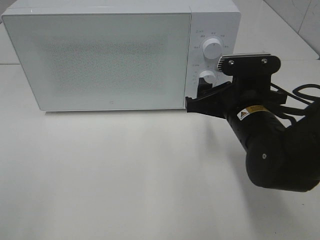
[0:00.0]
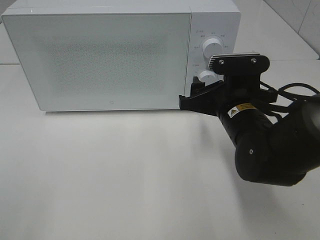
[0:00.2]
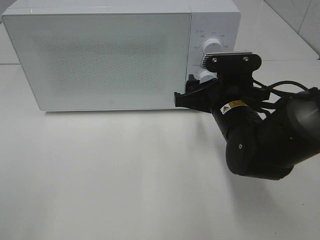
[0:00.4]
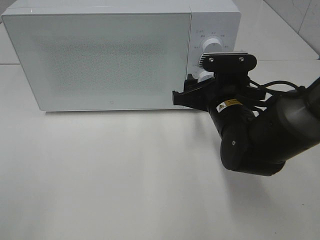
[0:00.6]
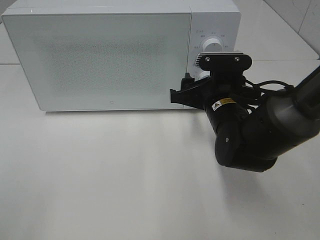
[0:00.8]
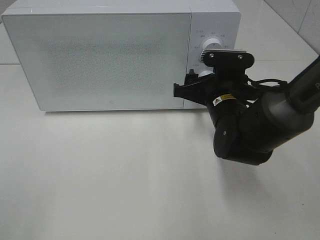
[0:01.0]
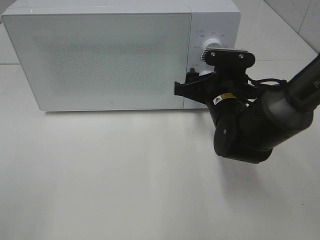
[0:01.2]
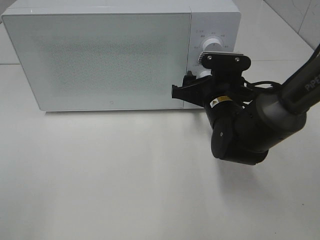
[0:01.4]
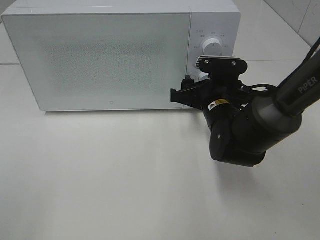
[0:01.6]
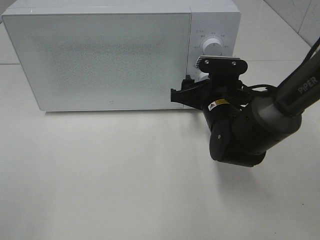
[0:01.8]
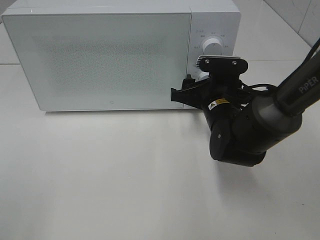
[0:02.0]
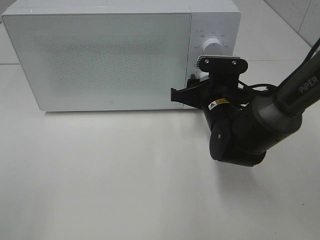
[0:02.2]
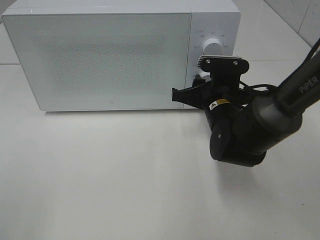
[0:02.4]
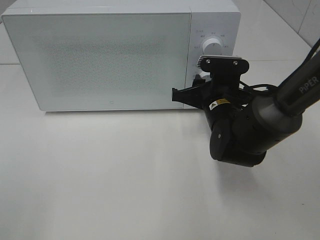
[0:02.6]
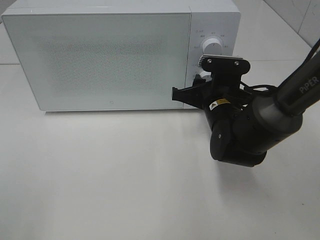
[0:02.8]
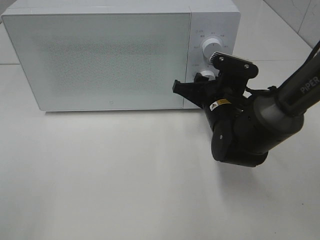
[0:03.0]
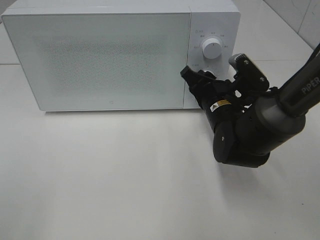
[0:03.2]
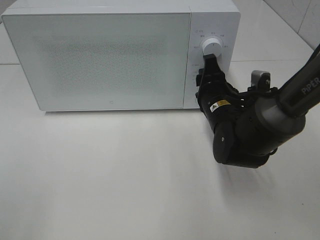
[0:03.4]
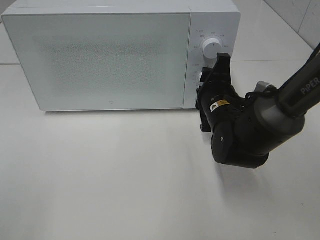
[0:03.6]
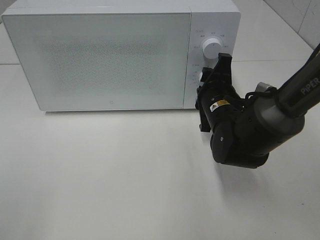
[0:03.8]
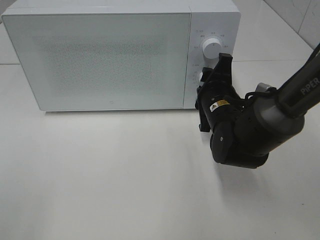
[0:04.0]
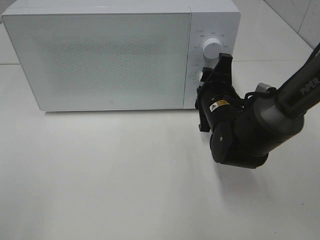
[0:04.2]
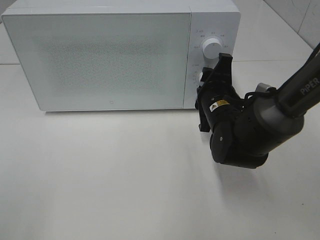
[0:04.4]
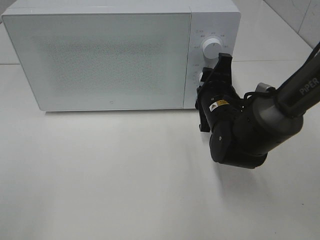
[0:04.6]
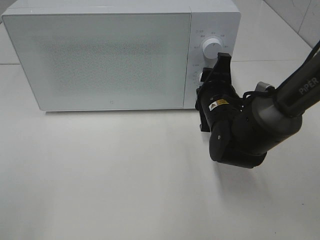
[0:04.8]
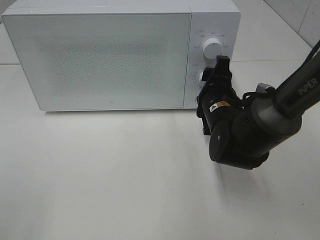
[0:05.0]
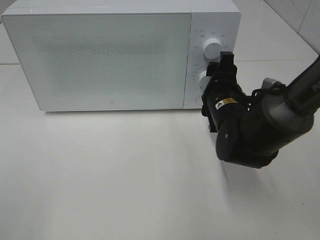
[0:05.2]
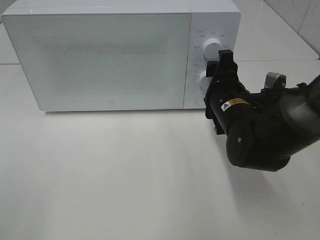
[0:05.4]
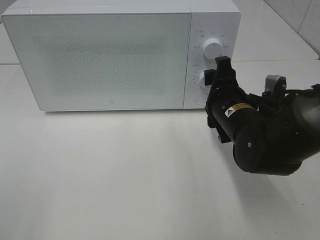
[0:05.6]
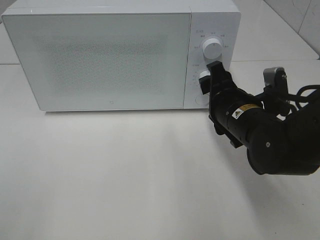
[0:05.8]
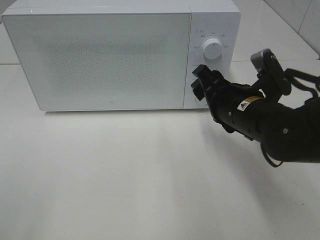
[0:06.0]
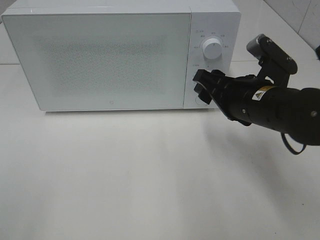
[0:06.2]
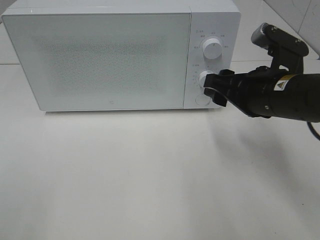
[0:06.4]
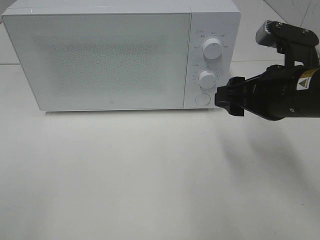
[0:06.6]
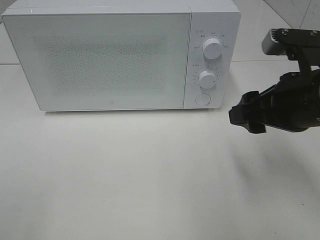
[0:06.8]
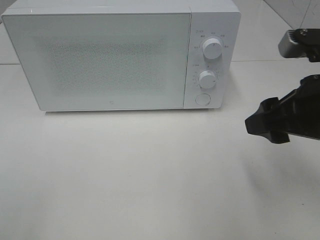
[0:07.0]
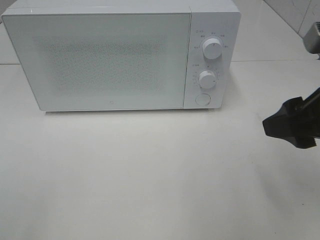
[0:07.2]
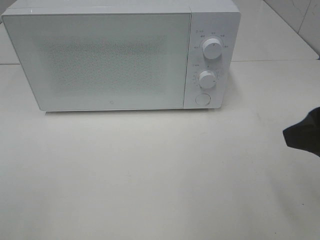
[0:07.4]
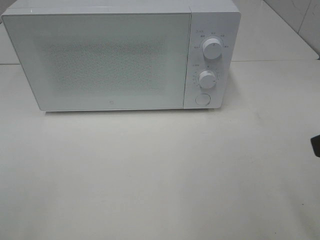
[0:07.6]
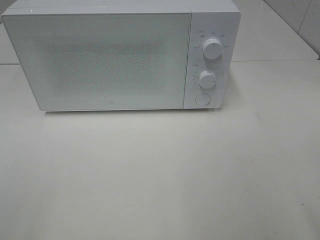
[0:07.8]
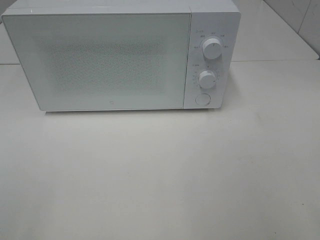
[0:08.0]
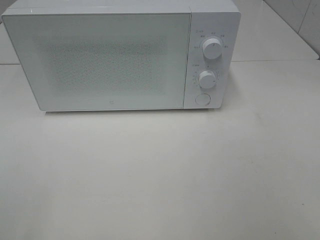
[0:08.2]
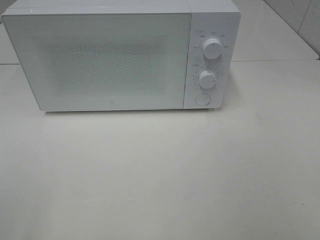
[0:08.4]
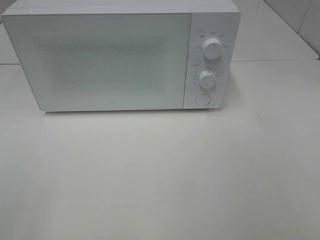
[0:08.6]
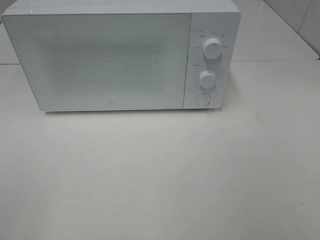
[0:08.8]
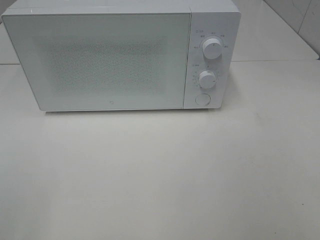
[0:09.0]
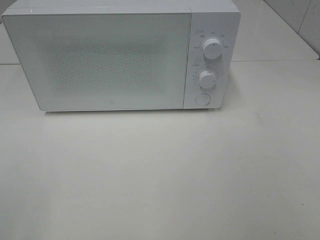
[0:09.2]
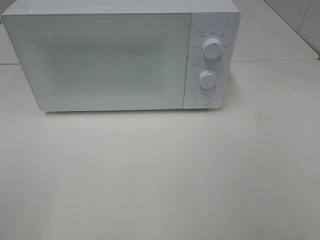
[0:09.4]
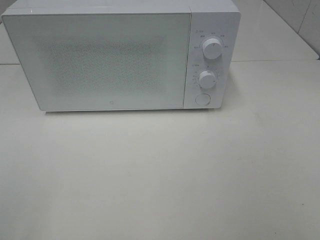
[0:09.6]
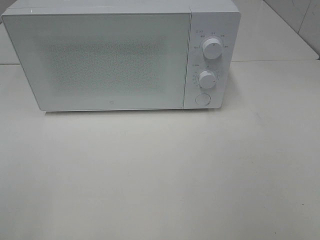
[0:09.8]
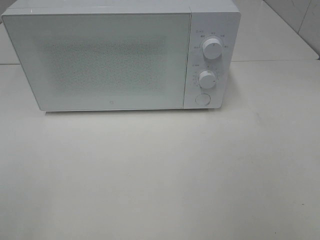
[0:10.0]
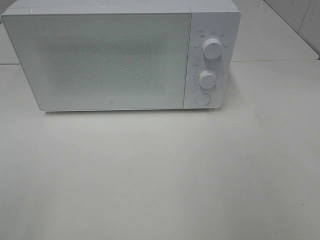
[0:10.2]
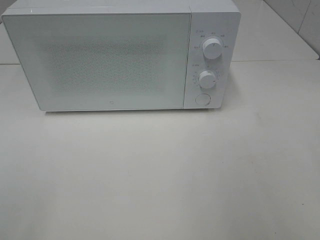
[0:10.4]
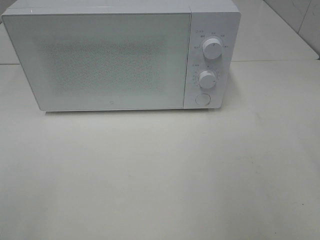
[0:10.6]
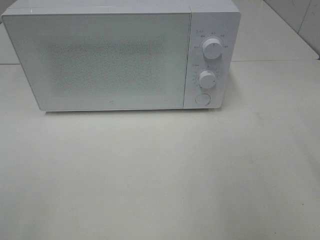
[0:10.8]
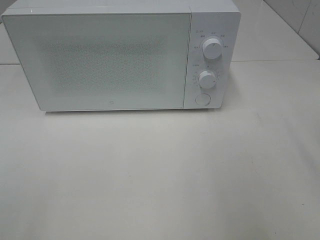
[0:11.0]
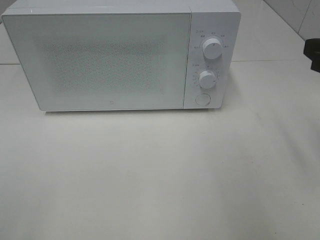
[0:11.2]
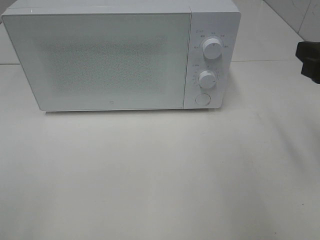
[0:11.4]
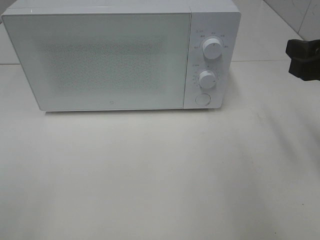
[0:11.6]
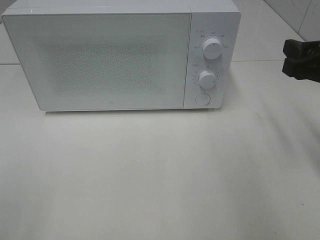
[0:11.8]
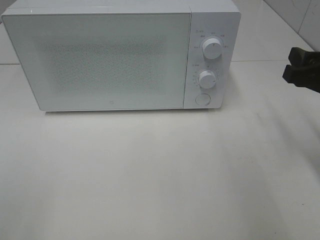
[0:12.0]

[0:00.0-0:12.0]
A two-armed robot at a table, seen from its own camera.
Task of the whole recording: Heat the burger.
Step, 0:00.0 to 0:05.0: Right hand: twist timer button.
0:00.0 to 0:01.6: The right gripper moves forward, roughly 5 cm.
0:01.6 to 0:03.0: The right gripper closes its fingers.
0:04.4 to 0:06.0: The right gripper travels backward by about 5 cm.
0:06.0 to 0:07.6: The right gripper is displaced backward, upward and to the right by approximately 25 cm.
0:10.4 to 0:12.0: The right gripper is displaced forward and downward by approximately 15 cm.

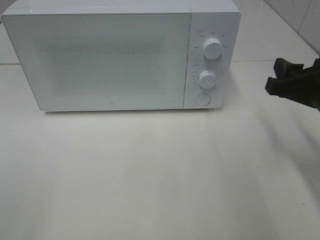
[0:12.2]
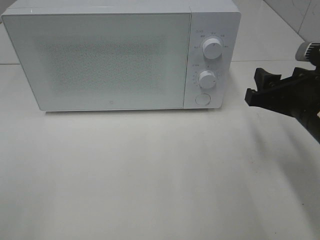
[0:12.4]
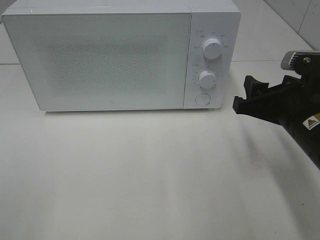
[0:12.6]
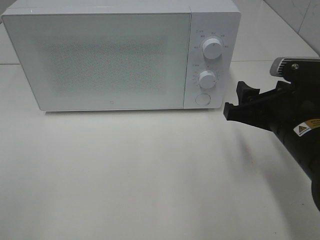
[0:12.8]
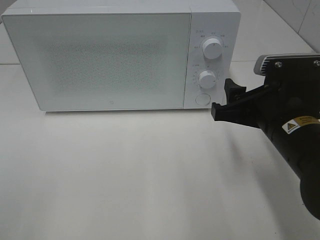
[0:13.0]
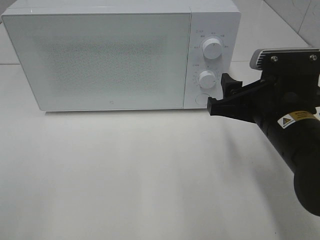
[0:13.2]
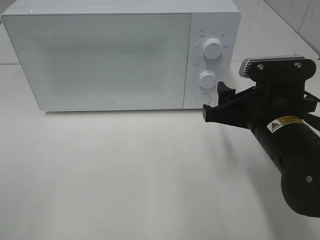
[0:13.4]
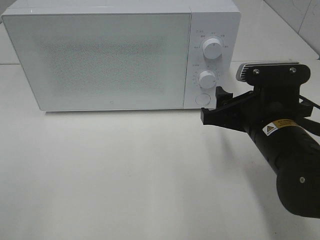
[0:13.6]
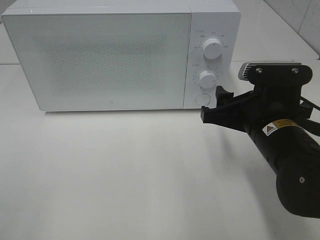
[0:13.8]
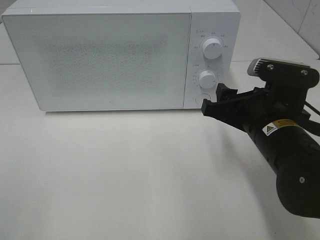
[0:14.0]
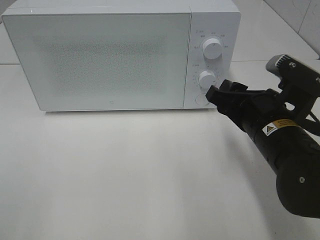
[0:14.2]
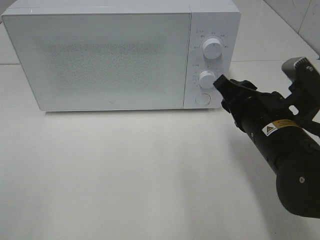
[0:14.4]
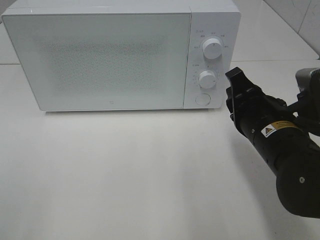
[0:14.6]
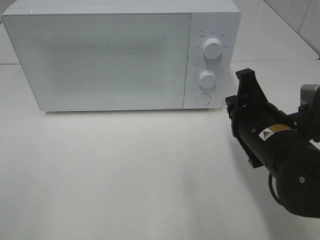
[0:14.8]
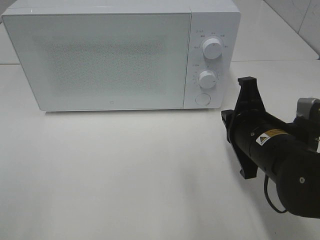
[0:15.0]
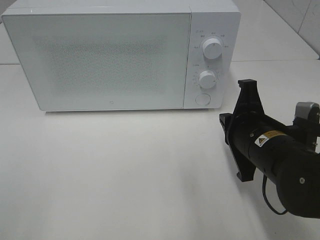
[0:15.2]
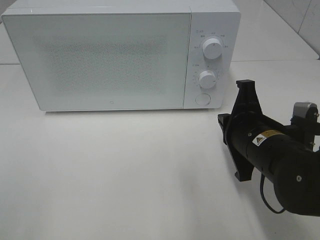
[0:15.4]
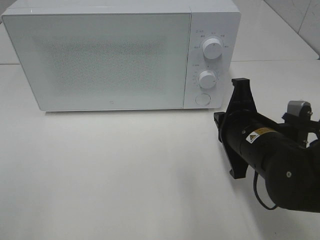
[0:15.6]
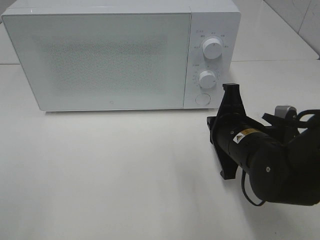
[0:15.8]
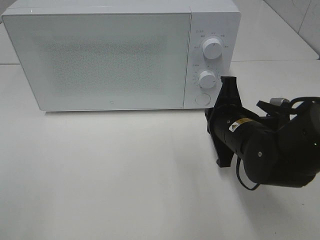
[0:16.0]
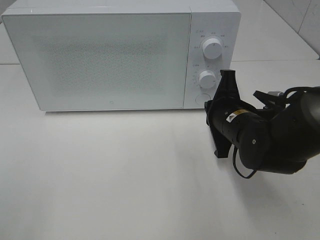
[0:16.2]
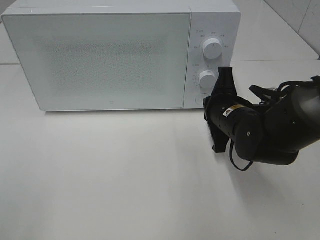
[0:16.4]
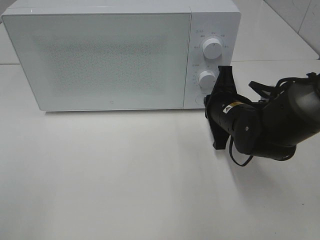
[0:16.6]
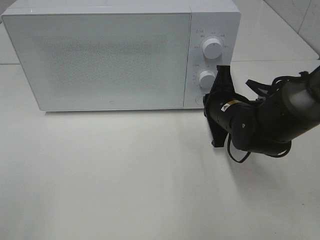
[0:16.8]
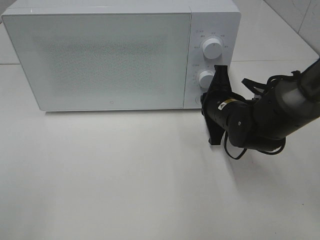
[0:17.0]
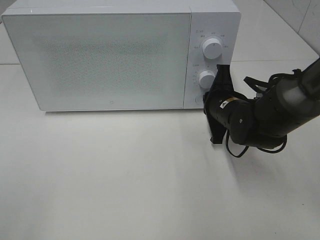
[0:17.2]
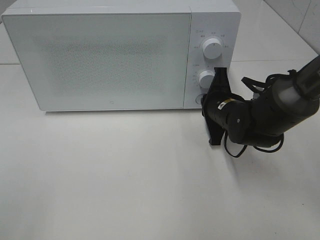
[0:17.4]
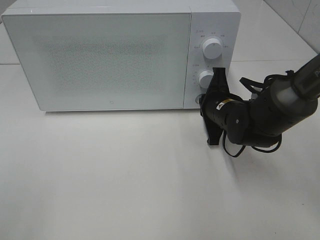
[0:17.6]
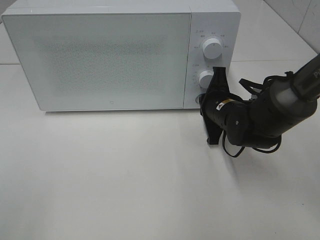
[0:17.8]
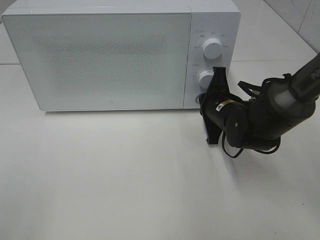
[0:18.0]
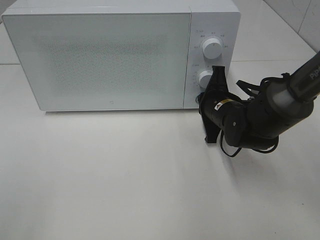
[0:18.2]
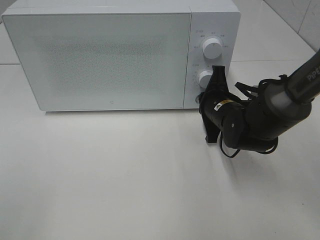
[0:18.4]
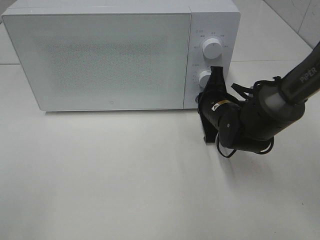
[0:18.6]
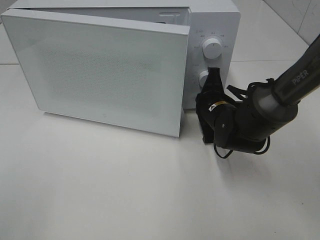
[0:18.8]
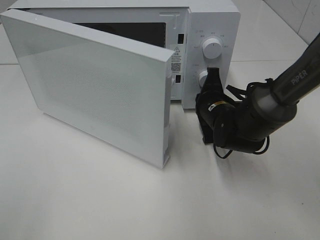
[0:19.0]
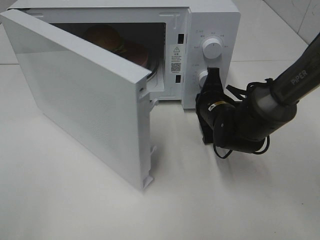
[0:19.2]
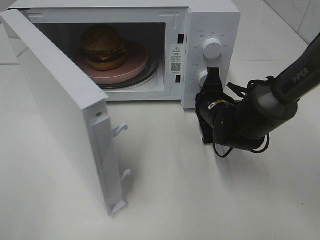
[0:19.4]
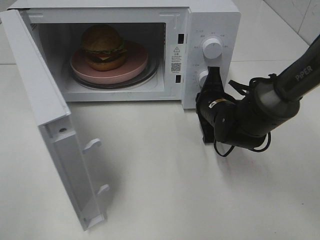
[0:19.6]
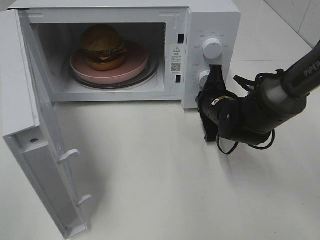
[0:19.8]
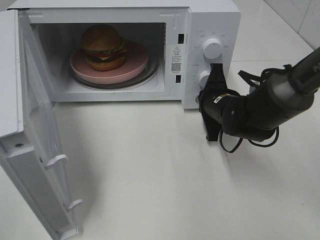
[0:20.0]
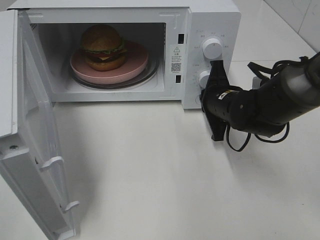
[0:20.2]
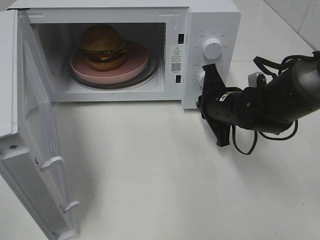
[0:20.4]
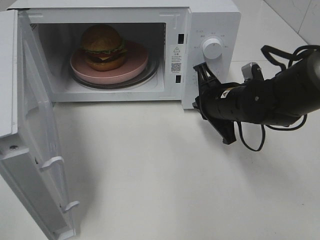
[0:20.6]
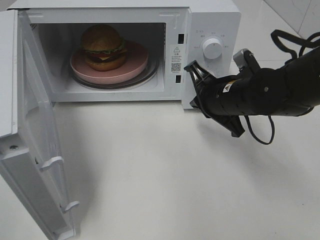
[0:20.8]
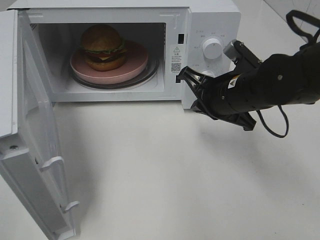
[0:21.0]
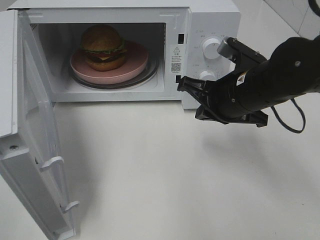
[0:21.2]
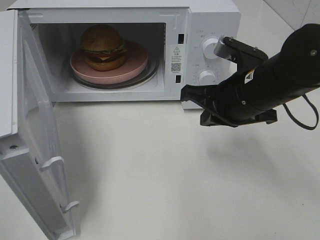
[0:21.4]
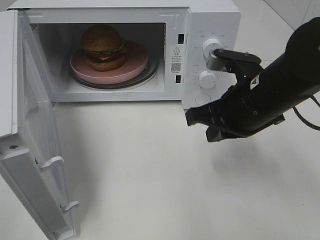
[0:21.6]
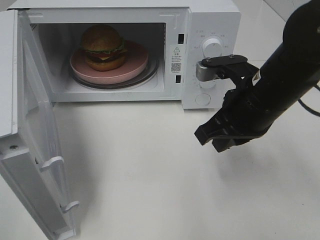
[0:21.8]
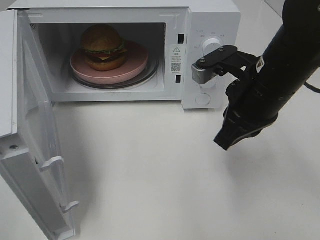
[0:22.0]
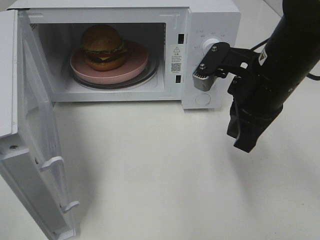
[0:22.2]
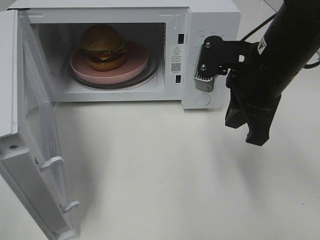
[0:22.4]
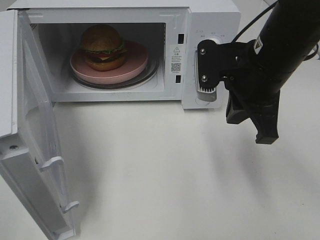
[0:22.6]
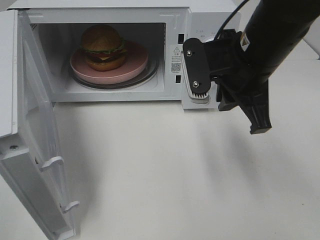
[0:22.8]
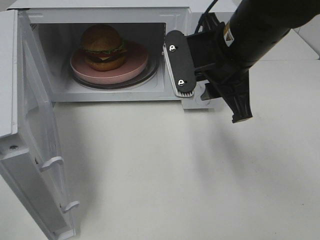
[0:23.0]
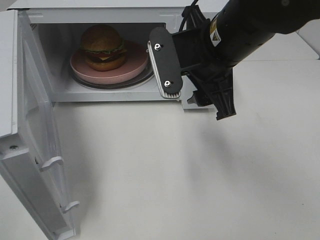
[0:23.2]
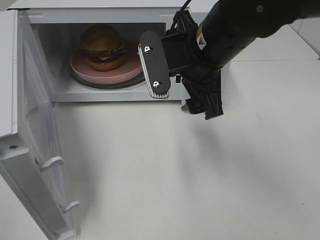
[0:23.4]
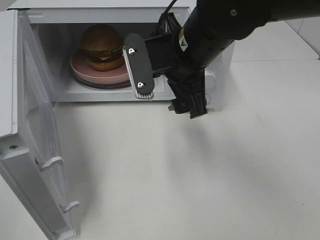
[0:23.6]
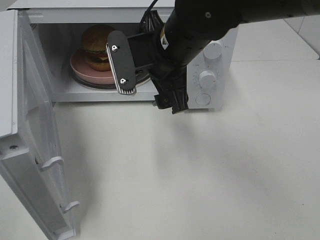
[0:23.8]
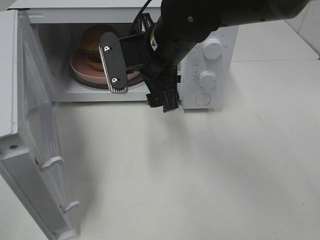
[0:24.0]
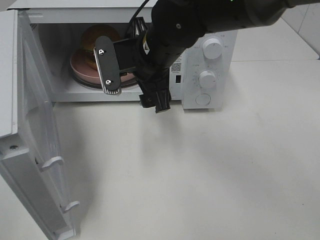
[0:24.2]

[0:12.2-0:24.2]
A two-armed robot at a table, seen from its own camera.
Task of the whole recording: Heat the burger.
Step, 0:12.2 to 0:20.2: Right hand: press the switch.
0:12.2 to 0:13.8: The right gripper shifts some 10 cm to the left.
0:13.8 to 0:15.2: The right gripper closes its fingers.
0:15.2 to 0:16.6: The right gripper travels forward by approximately 10 cm.
0:16.6 to 0:18.2: The grippers stay close to where they were, moving slightly.
0:19.8 to 0:21.2: The right gripper shifts about 10 cm upward and backward.
0:21.2 to 0:22.6: The right gripper heads upward, covering about 5 cm.
0:22.6 to 0:24.2: The right gripper moves to the left and forward, approximately 15 cm, and opens up.
